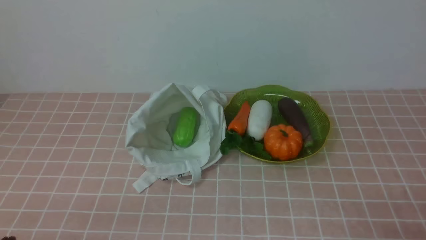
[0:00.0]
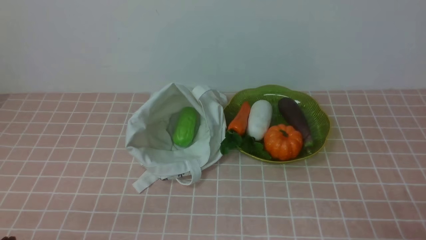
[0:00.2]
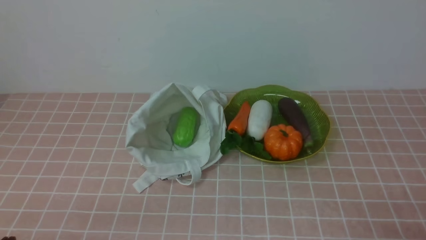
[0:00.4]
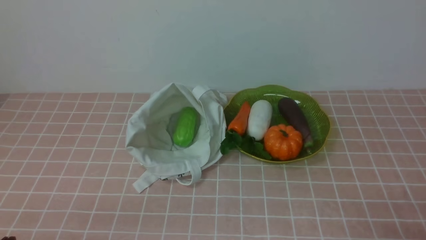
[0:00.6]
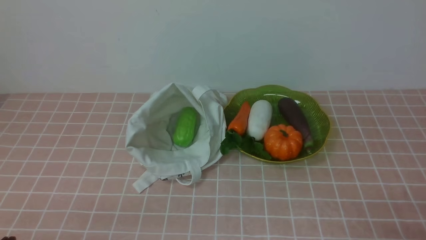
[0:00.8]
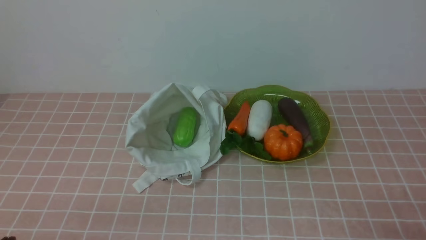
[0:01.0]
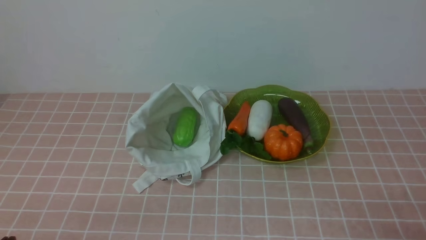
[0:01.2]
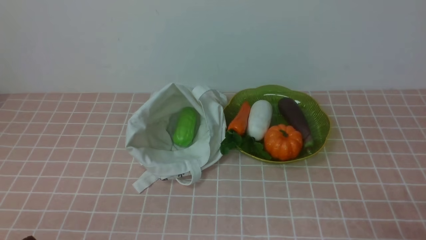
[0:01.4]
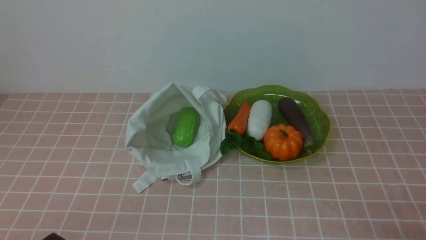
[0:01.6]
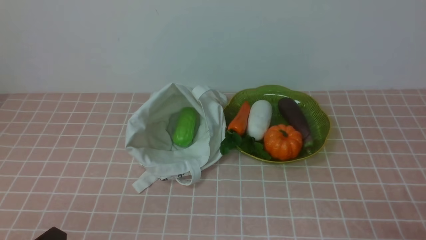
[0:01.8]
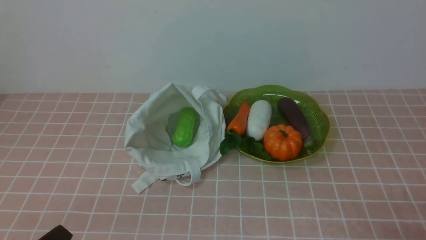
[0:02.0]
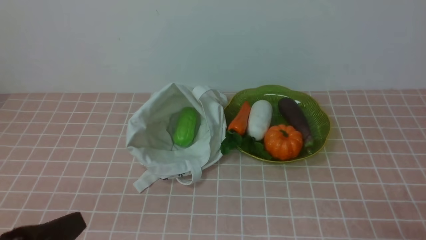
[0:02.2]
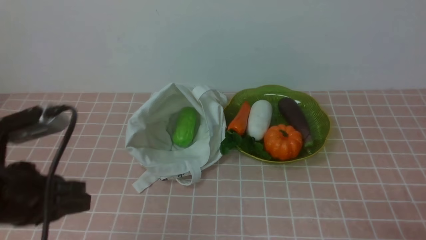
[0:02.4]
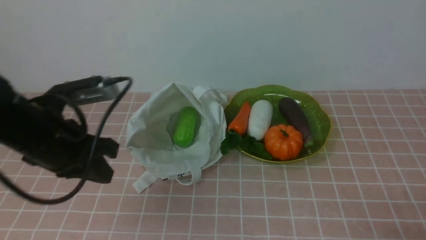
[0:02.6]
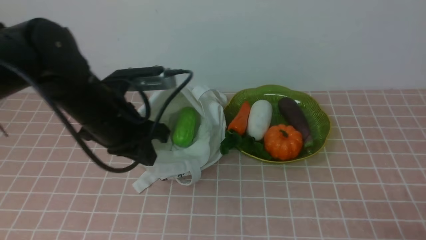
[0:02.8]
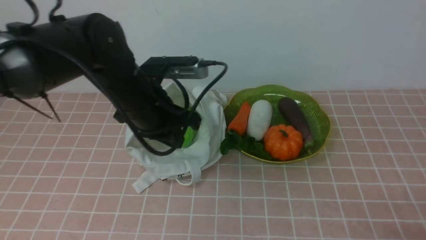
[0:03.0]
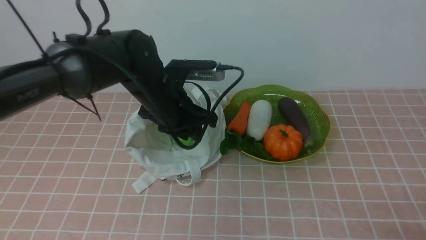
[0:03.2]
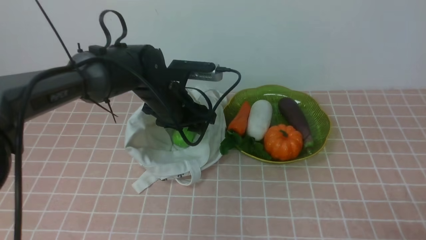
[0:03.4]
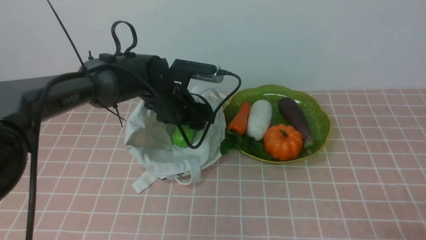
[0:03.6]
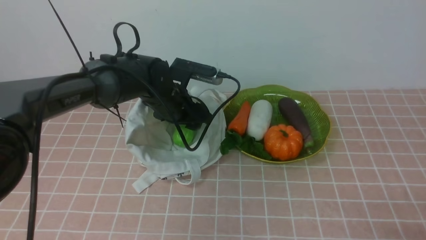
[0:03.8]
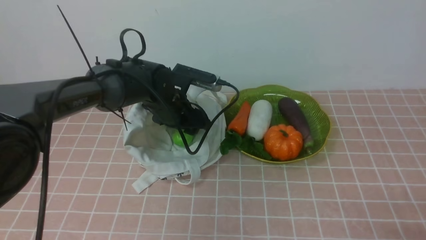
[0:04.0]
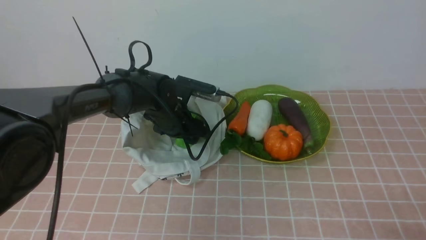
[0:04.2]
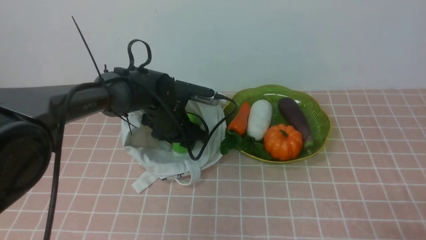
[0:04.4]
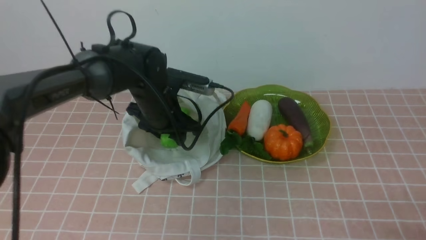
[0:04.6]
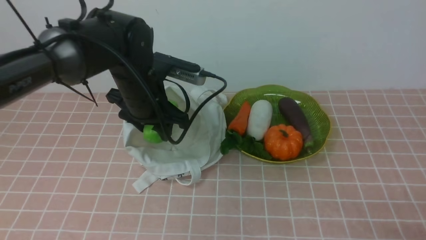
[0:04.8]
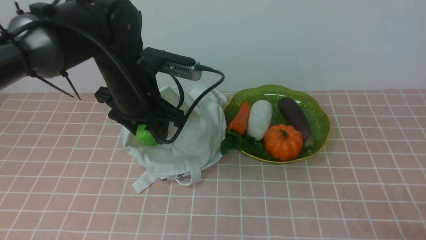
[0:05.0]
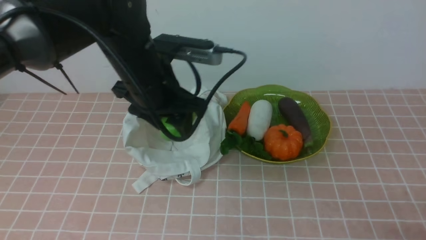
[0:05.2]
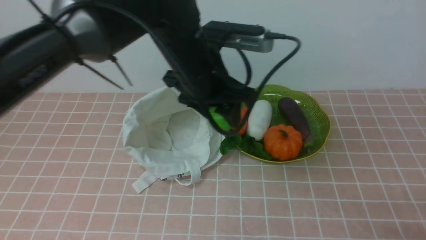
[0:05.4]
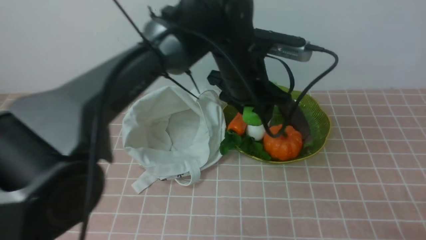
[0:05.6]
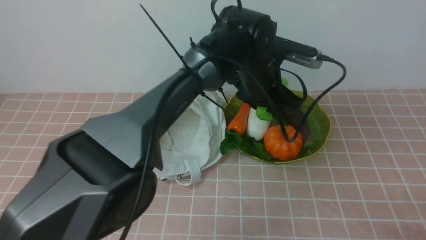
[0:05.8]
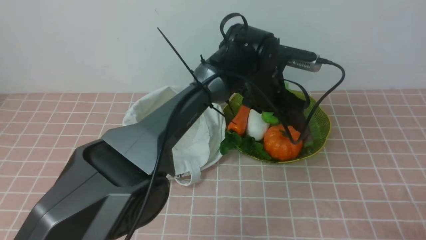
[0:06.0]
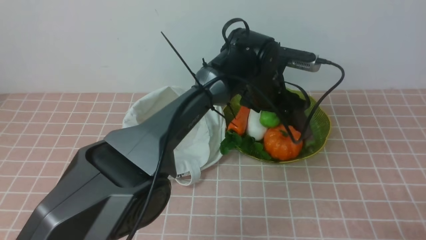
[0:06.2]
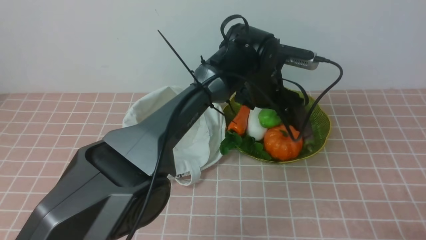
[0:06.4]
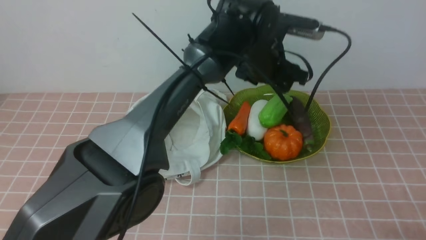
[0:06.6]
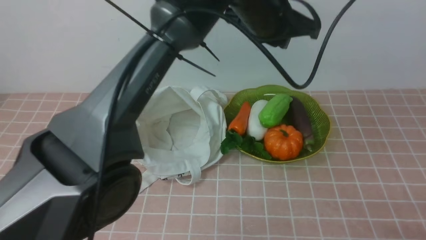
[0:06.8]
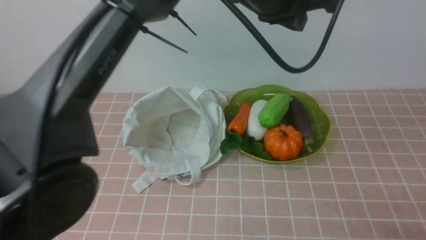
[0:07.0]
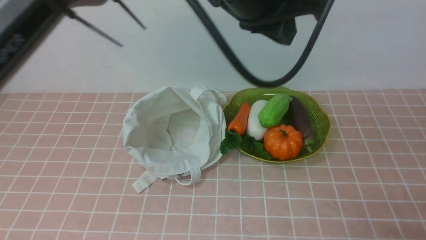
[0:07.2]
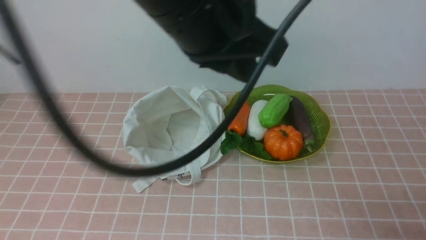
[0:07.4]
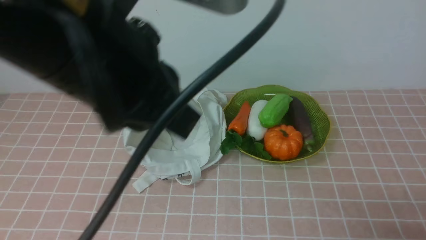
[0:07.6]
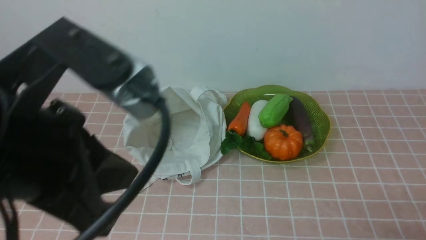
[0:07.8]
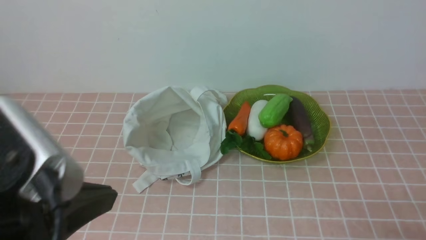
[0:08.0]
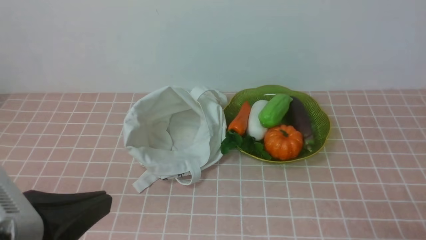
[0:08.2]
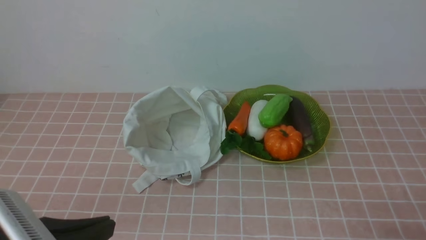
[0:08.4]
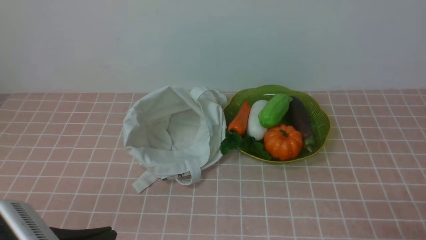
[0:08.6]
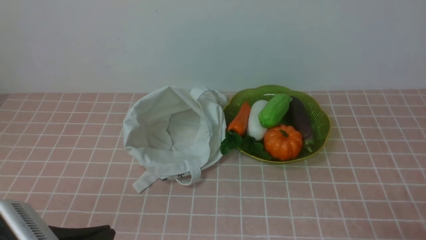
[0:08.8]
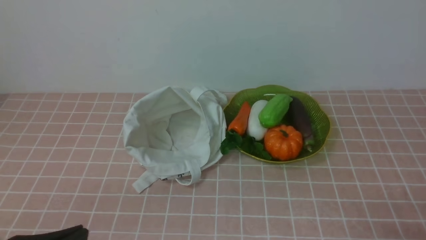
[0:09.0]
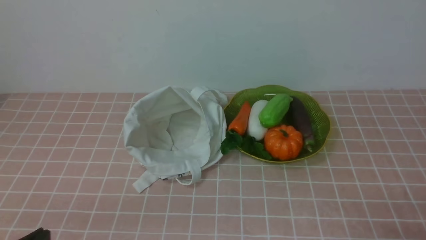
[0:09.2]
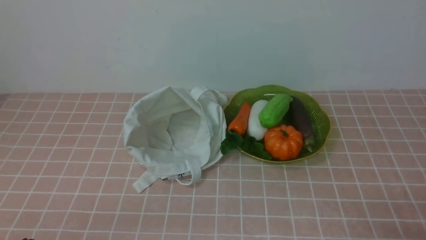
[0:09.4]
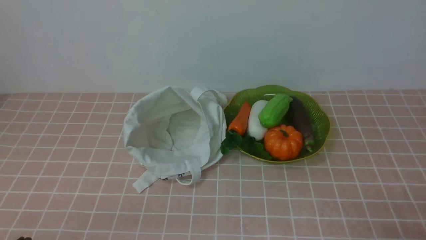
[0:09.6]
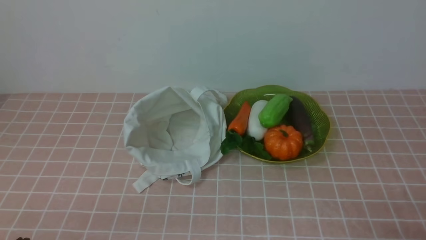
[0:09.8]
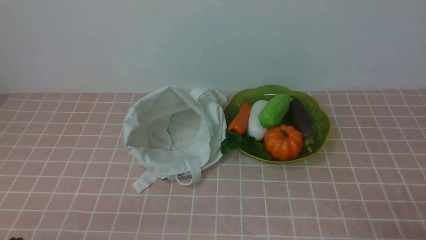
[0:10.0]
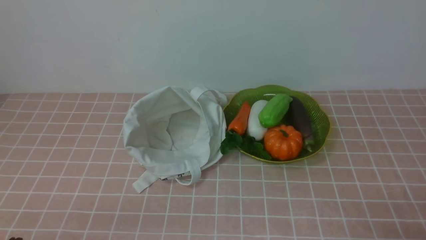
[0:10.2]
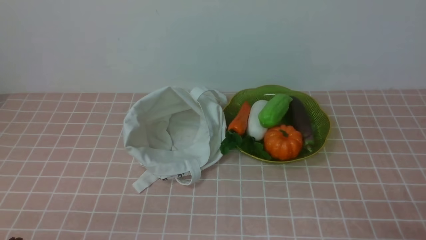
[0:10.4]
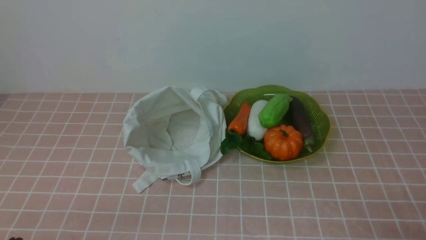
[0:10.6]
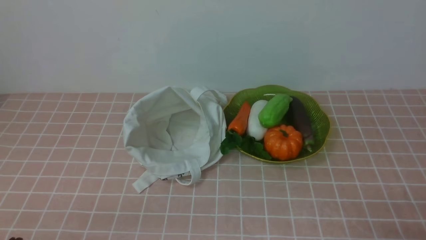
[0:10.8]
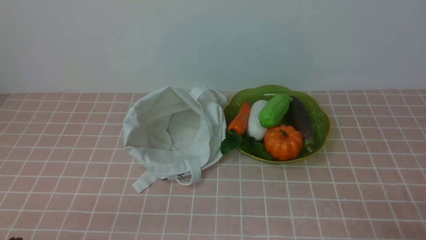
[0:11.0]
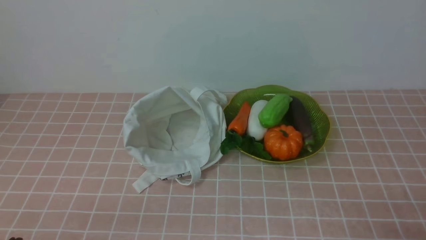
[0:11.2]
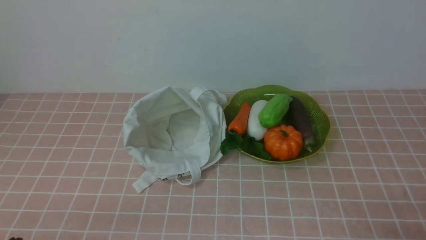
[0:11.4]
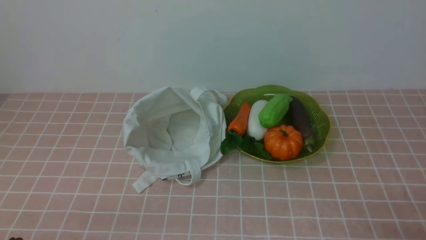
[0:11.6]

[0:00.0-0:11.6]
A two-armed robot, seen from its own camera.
Task of the whole recording: take vegetables from bag on pink coffee tablecloth place on plate.
Step, 0:00.0 to 0:04.2: Grasp the bitter melon with left gripper.
Step, 0:04.4 to 0:06.6: Place the bitter melon on the plate with left gripper.
0:01.4 to 0:02.8: The left gripper moves forward and to the right, approximately 30 cm.
0:02.8 to 0:04.4: The left gripper moves forward and downward, approximately 15 cm, and opens up.
0:04.4 to 0:05.8: The left gripper travels to the right and upward by roughly 20 cm.
0:05.8 to 0:07.2: The left gripper goes some 25 cm upward and backward, and closes.
0:07.2 to 0:08.8: The left gripper shifts roughly 35 cm backward, to the left and downward.
0:08.8 to 0:10.2: The left gripper goes some 10 cm downward and to the left.
0:10.2 to 0:11.6: Neither gripper changes place.
